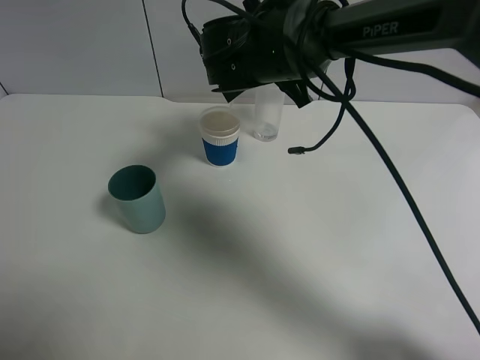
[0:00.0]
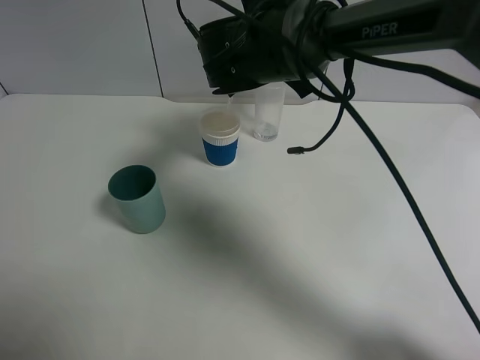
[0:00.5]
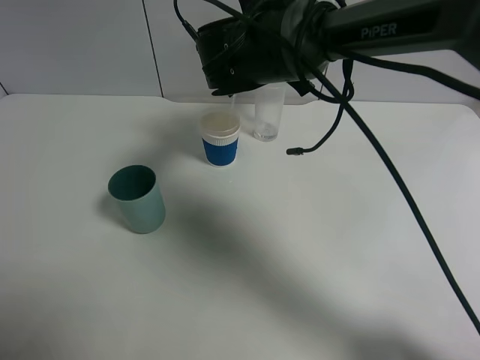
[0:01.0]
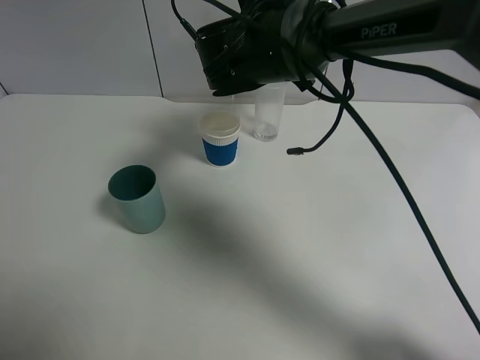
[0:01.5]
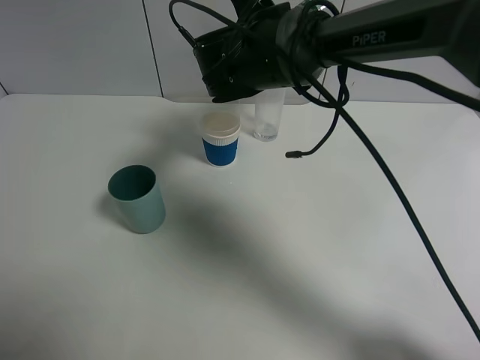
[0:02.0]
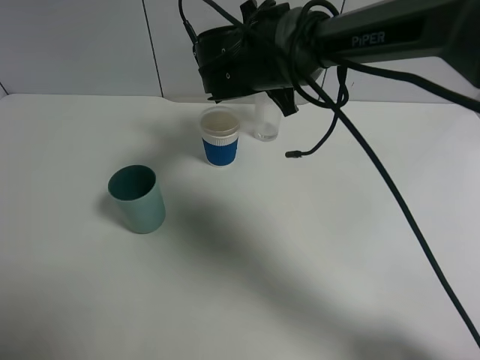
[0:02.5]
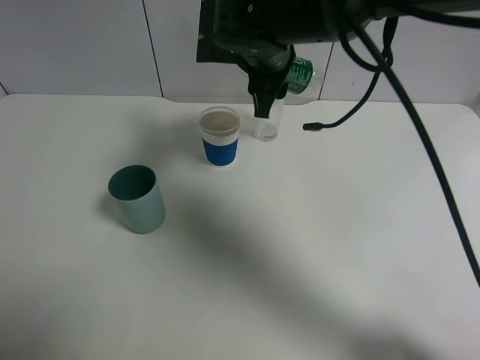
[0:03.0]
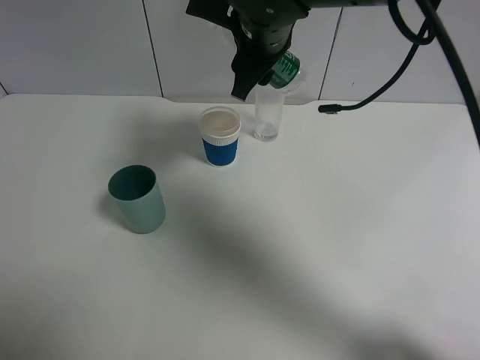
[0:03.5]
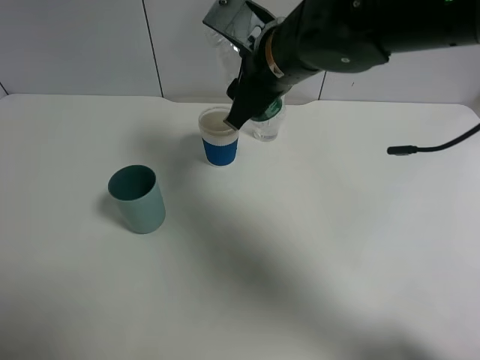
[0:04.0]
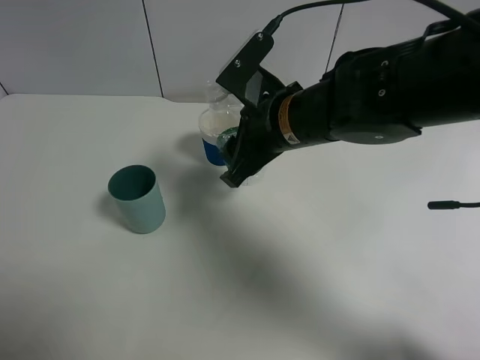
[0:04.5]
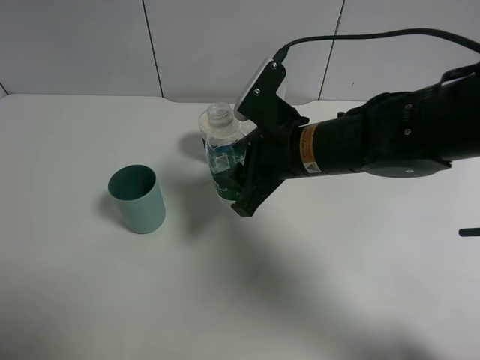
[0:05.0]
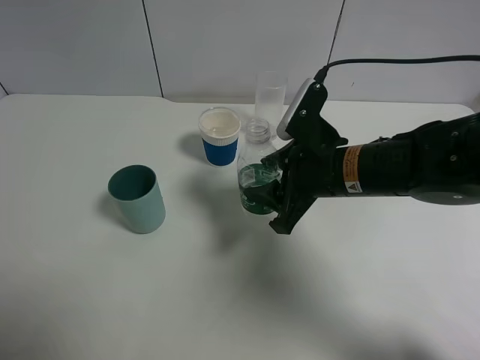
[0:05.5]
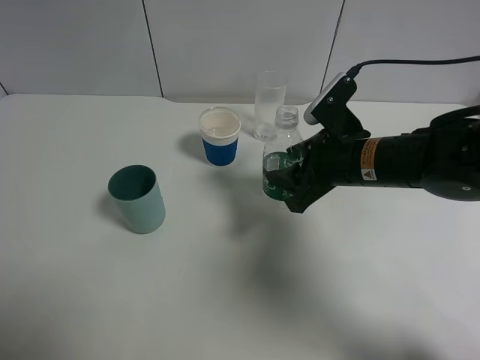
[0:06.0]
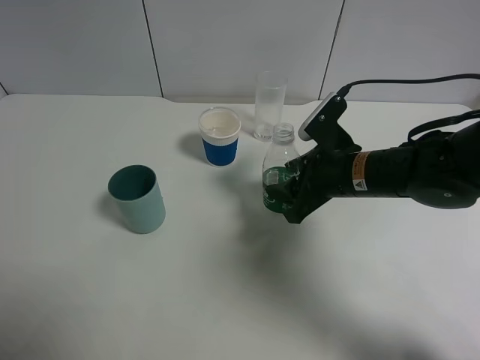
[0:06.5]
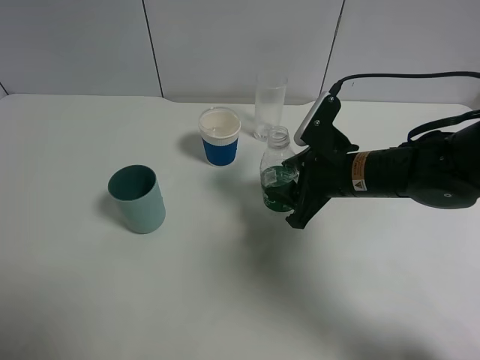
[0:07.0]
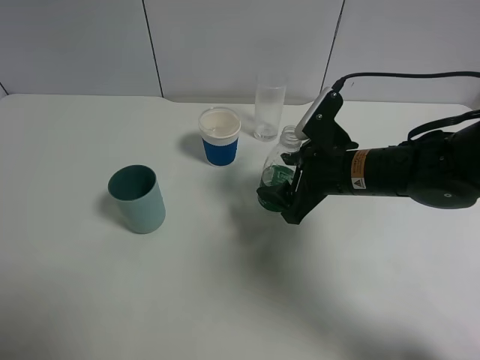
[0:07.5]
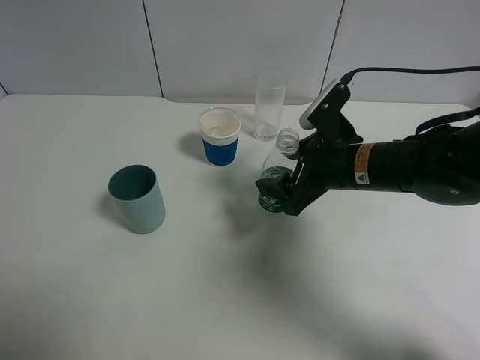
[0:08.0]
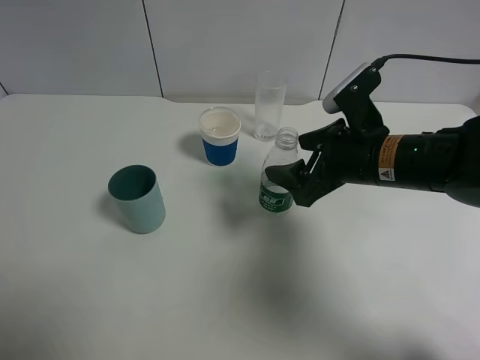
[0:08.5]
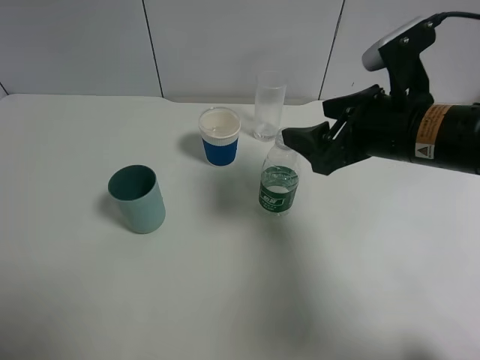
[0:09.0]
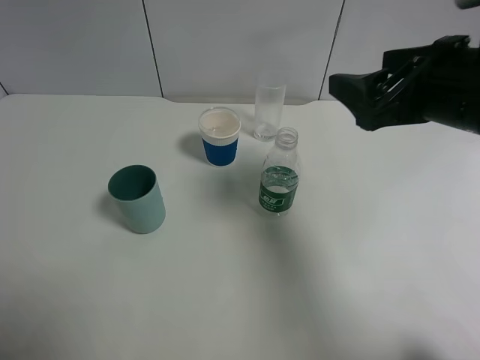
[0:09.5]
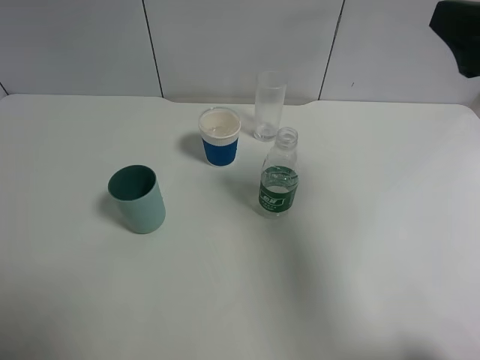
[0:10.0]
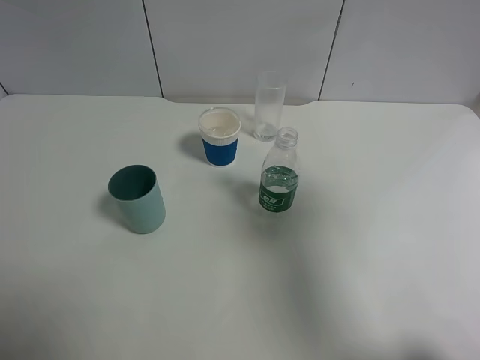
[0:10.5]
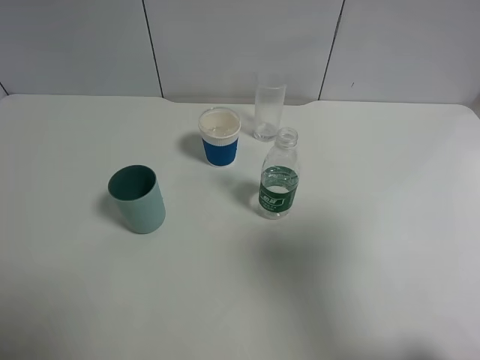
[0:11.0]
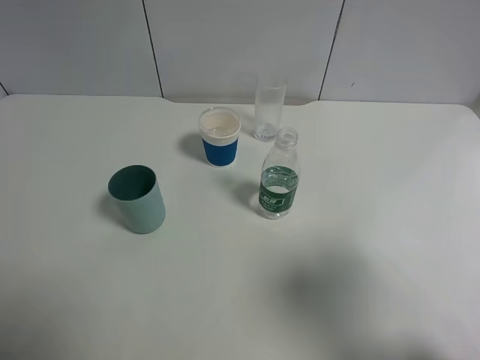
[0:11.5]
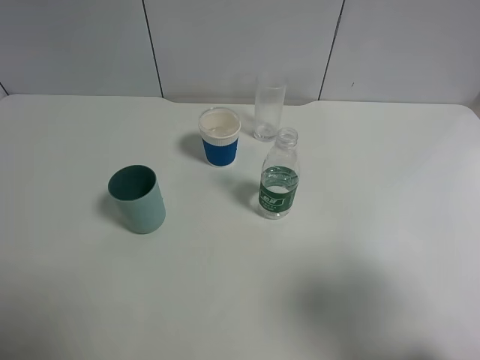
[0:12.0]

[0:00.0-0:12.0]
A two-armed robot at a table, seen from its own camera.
Task of the whole recording: use a gripper to hold the bottle of the drink and pour it into a random cup.
Step, 0:00.0 to 0:03.0: Pour the mineral water into the paper cup with the right gripper.
Step, 0:03.5 to 0:08.0: Place the mineral water bottle on the table with the right gripper.
0:00.0 to 0:02.0: The grippers move only a little.
0:02.0 to 0:04.0: The right gripper is displaced backward by roughly 5 cm.
0:04.0 to 0:06.0: The right gripper is displaced to the right and downward by about 15 cm.
0:06.0 to 0:08.0: The right gripper opens.
0:08.0 to 0:10.0: The right gripper shifts about 25 cm upward, to the right and backward.
0:10.0 to 0:12.0: The right gripper moves backward, approximately 15 cm.
